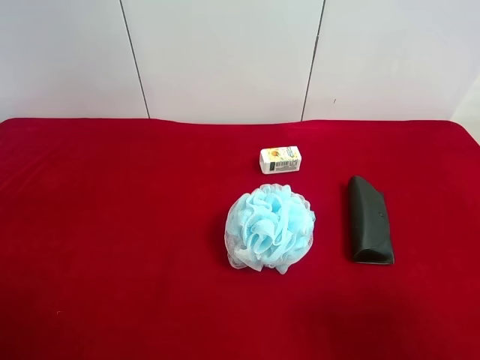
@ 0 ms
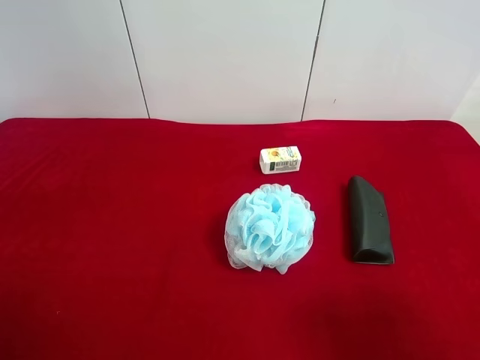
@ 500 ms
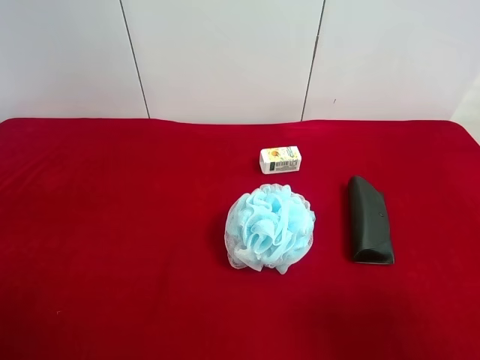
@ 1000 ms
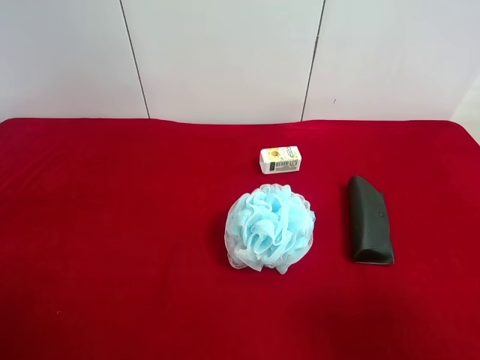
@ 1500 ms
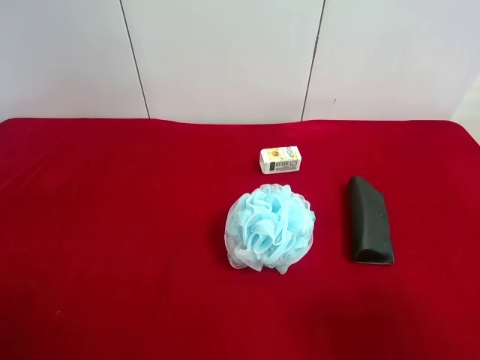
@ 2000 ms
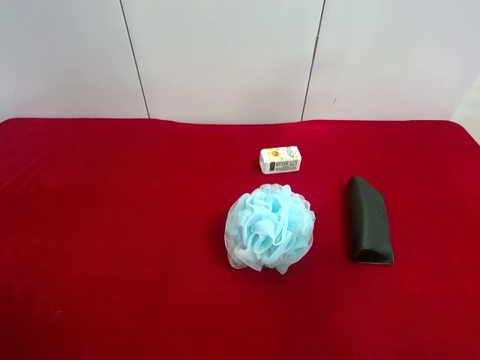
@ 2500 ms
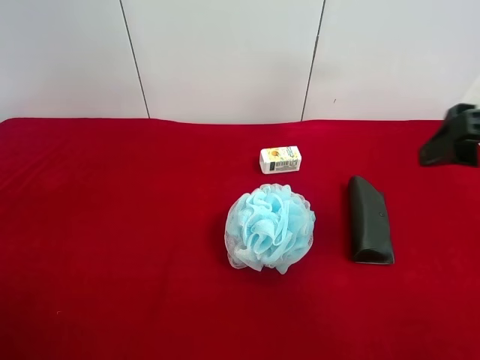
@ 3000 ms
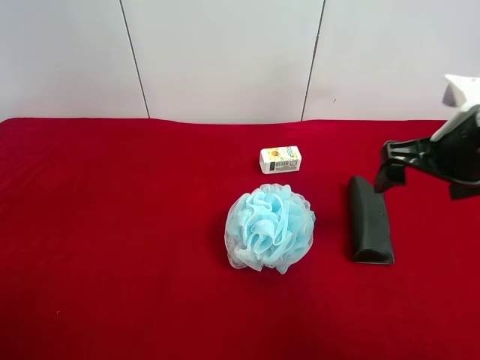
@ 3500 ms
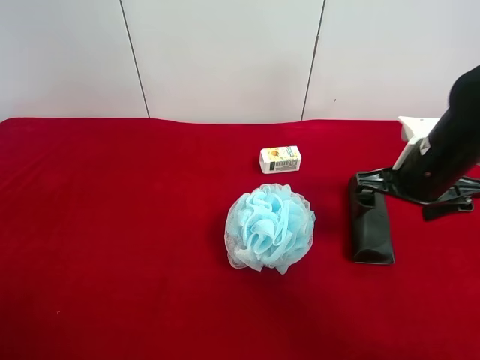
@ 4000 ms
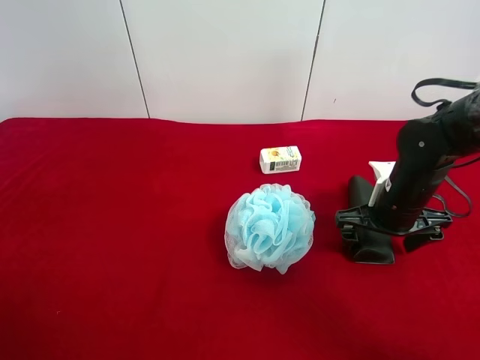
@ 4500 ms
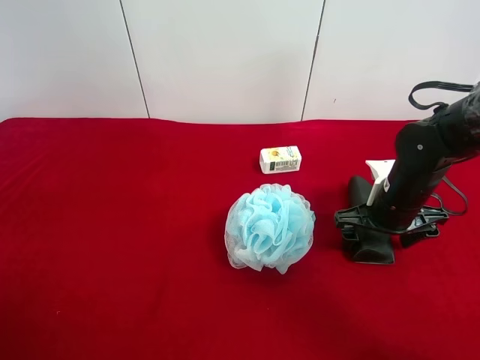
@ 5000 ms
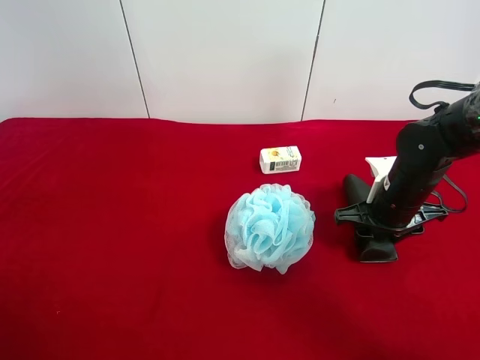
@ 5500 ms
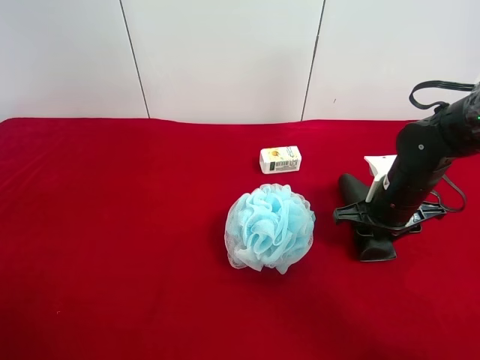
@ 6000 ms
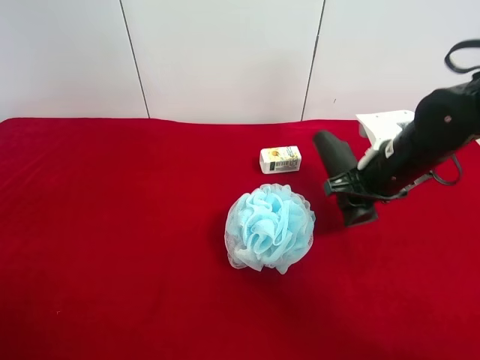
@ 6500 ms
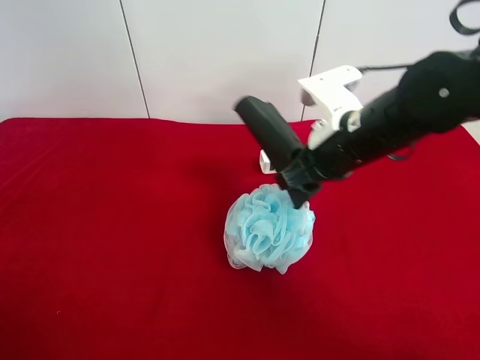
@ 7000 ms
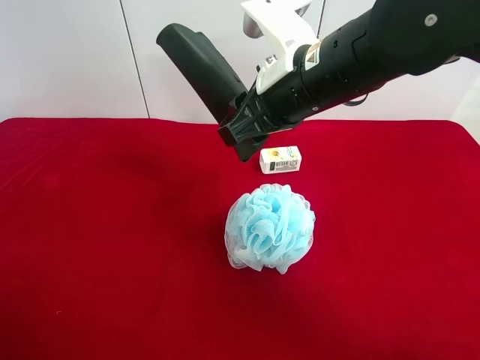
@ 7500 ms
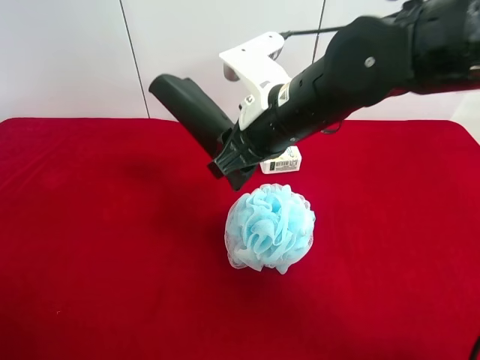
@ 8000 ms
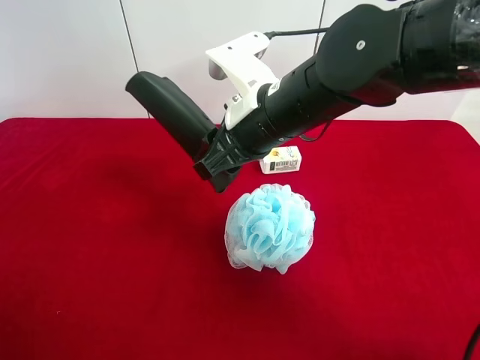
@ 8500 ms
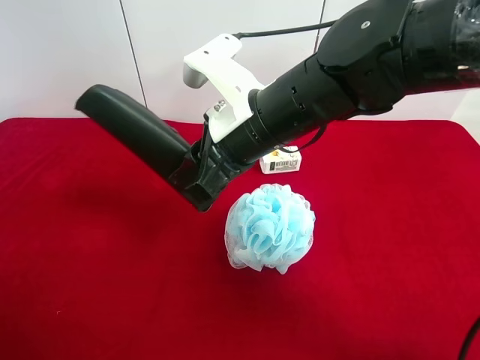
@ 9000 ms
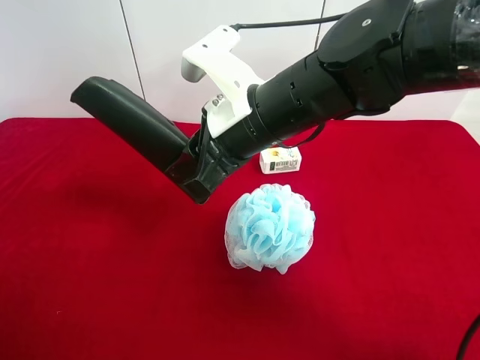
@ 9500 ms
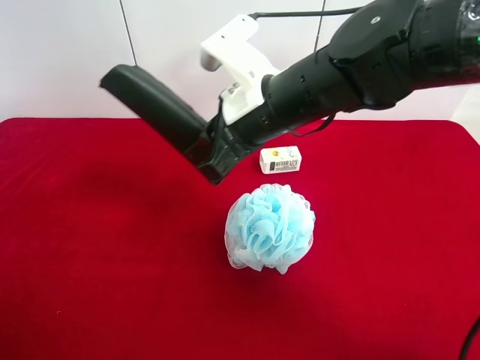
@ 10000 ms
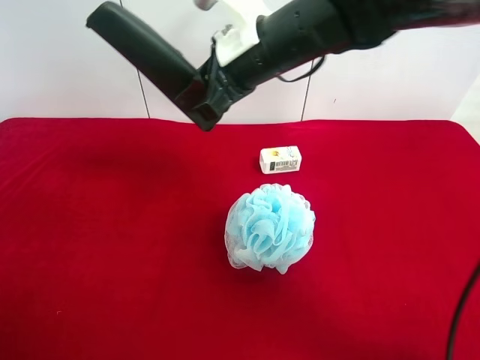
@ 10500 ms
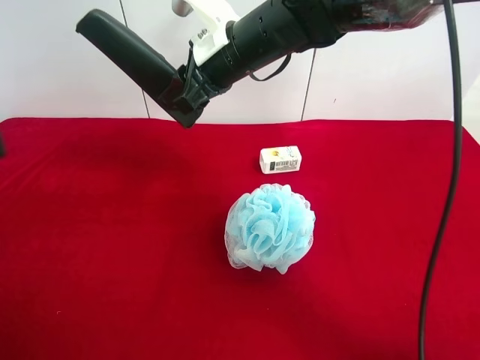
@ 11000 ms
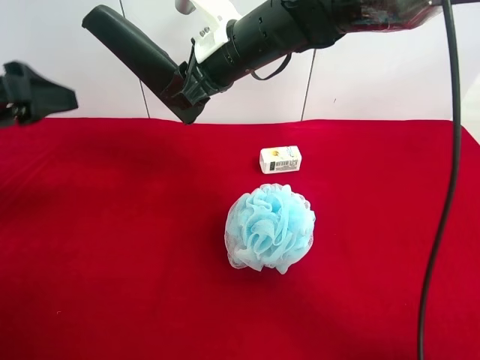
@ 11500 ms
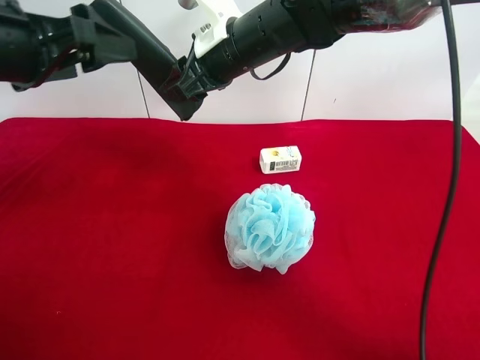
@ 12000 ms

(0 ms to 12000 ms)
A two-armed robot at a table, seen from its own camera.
Task of the whole recording: use the right gripper to pick up the item and transfer it from the right gripper to the left gripper.
Step, 0 ms - 5000 ms: Use the right gripper to grab the eyeglass case on the right side of the table.
0 ms - 2000 ms: Both grippers stay put.
2000 ms - 4000 ms: The right gripper travels forward by about 25 cm.
4000 ms - 6000 ms: The right gripper heads downward, covering approximately 5 cm, and closes its fingers.
6000 ms - 8000 ms: The right gripper moves to the left and upward, roughly 20 cm.
10000 ms - 12000 ms: The right gripper is displaced forward by roughly 10 cm, while the left gripper travels forward by some 25 cm.

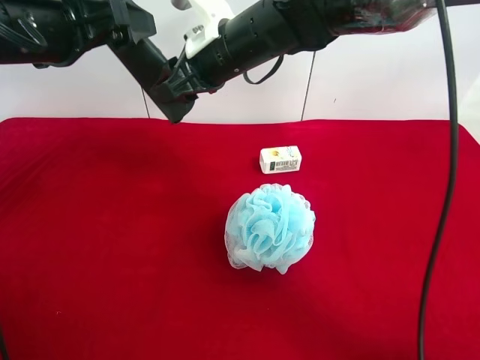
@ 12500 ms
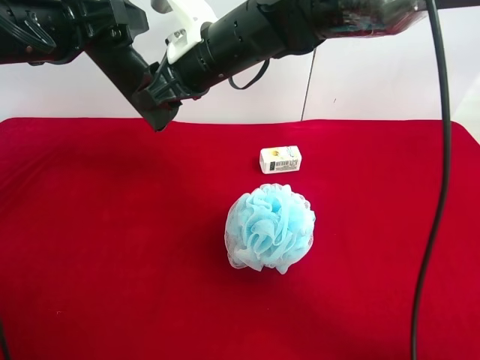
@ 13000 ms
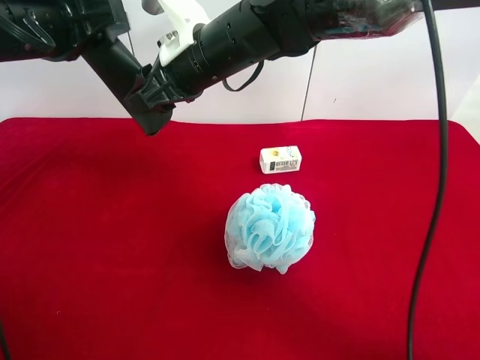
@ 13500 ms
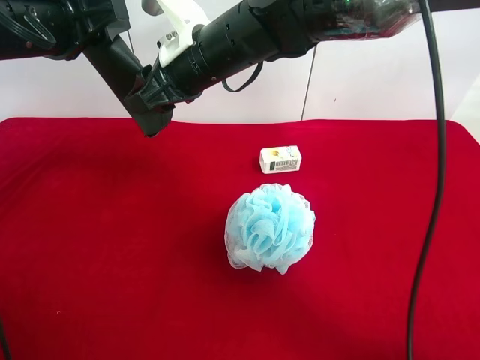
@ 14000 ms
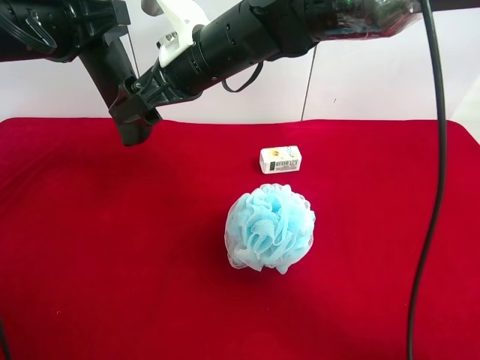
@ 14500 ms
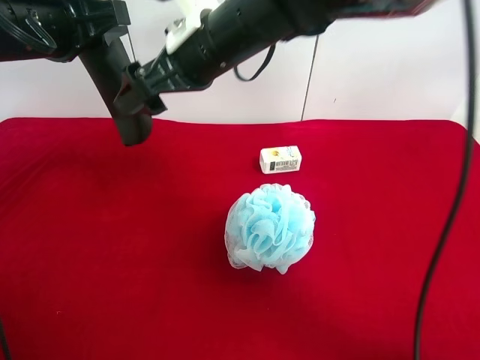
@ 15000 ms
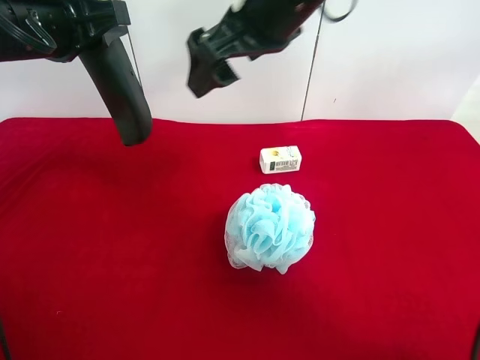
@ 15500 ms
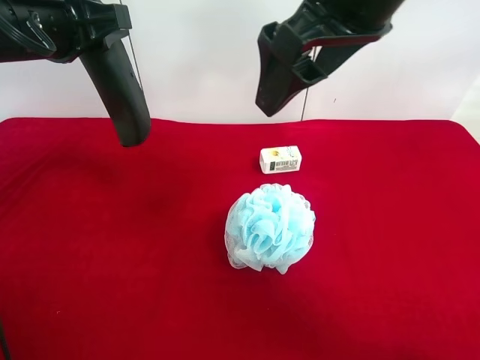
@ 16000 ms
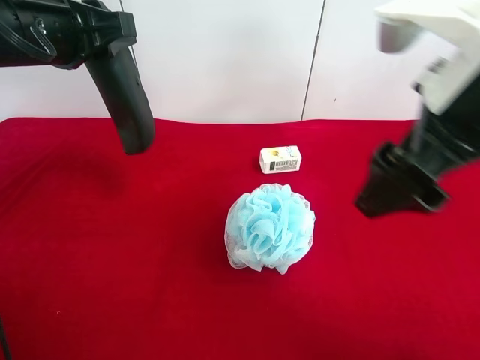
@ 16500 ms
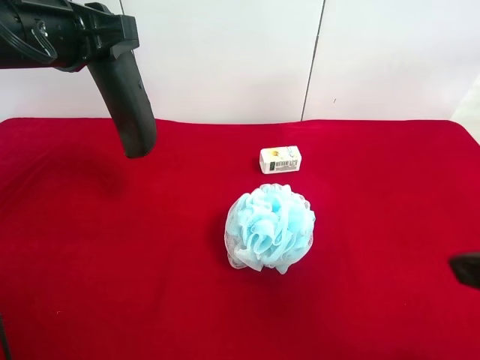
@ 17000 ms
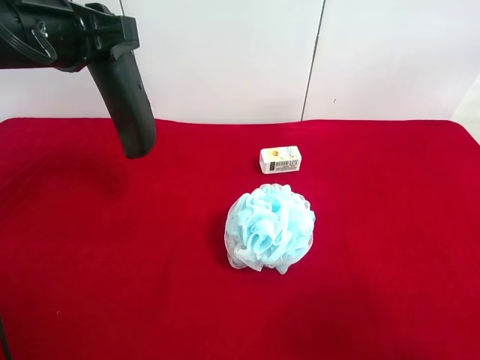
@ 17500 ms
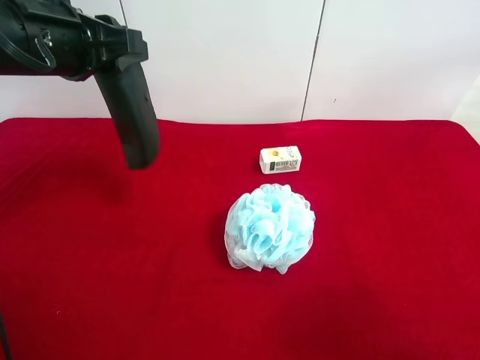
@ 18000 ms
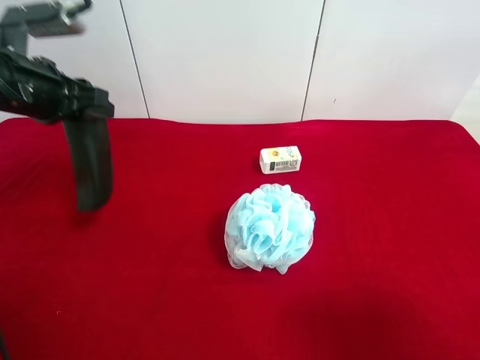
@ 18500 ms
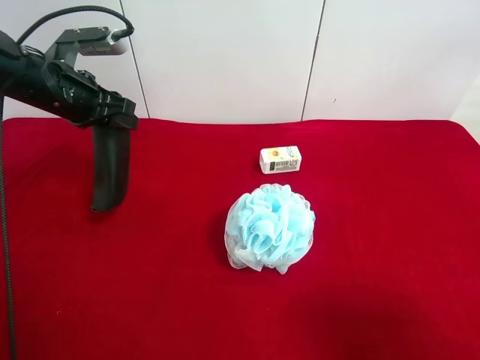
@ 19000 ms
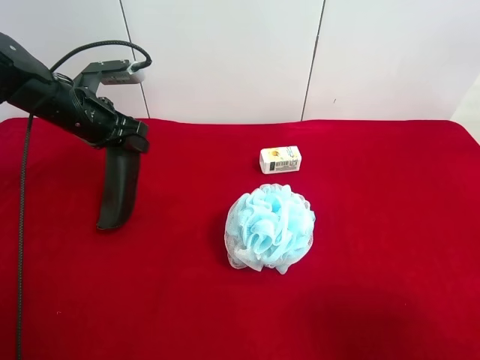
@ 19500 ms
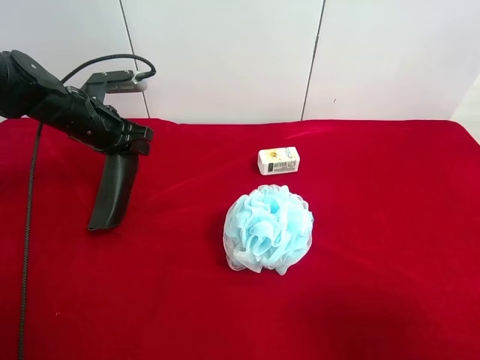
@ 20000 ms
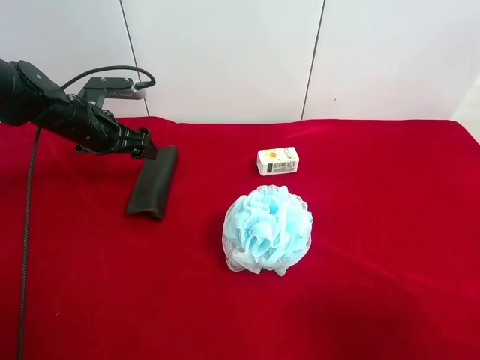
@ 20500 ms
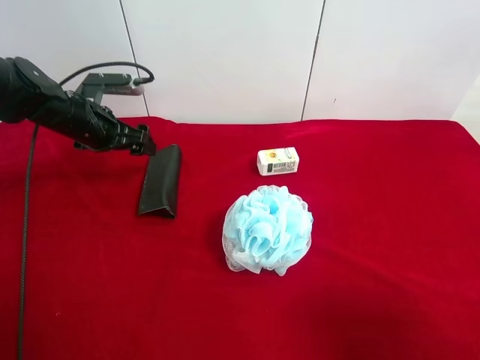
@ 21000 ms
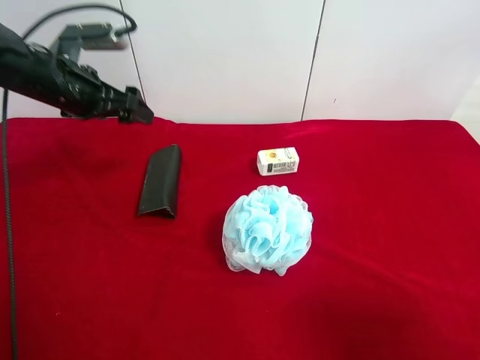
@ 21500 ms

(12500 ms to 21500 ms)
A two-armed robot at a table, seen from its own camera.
Task of the whole recording: use the right gripper to pick up the item and transfer it from the right gripper to the left gripper.
Step, 14500 ms - 20500 ms: The left gripper places eyeglass case on the left side of the table.
12500 ms - 14500 ms: The right gripper opens, while the left gripper closes.
14500 ms - 17000 ms: The right gripper travels backward and to the right by some 40 cm.
17000 ms - 19500 ms: The right gripper heads backward, covering about 5 cm. The left gripper heads downward and forward, covering approximately 15 cm.
19500 ms - 21500 ms: The left gripper shifts some 5 cm upward, and opens up.

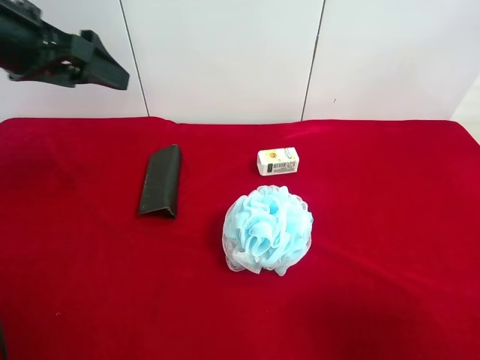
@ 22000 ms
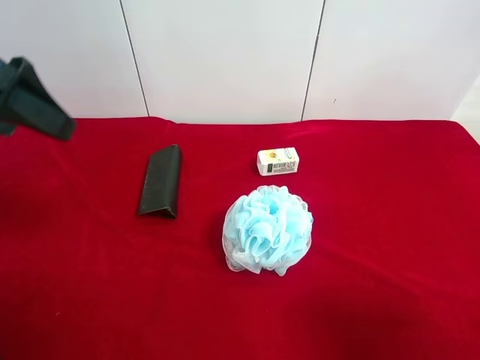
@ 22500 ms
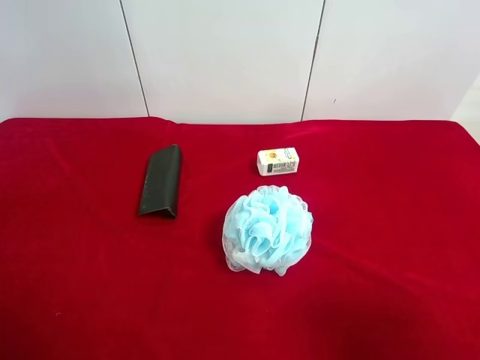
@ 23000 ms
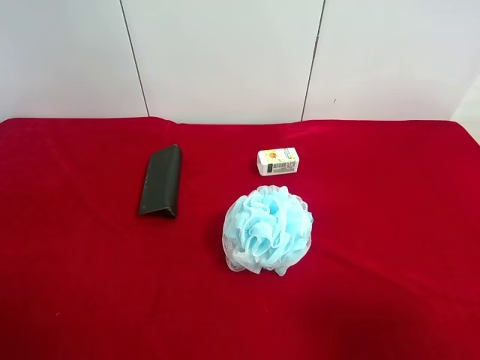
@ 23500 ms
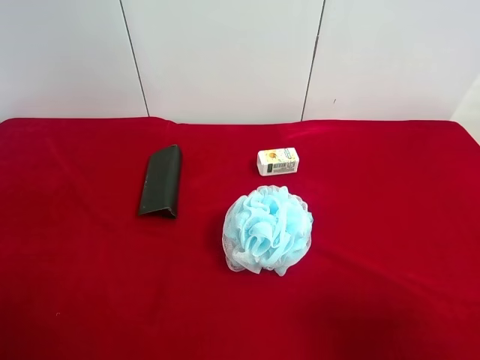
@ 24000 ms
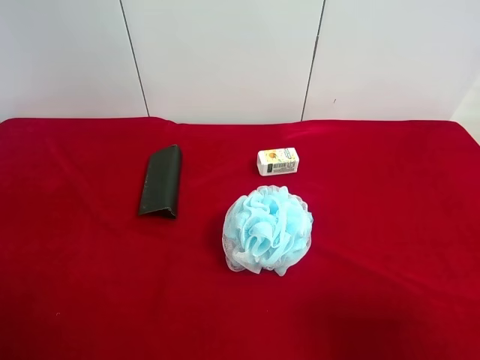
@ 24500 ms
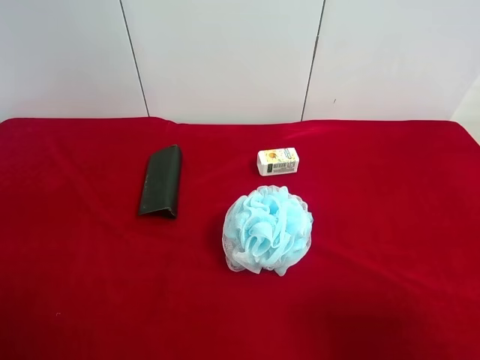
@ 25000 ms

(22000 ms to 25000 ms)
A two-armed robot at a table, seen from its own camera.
Task of the whole recording: use the right gripper to pick up the item and transfer it from the right gripper to the left gripper.
22000 ms - 23500 ms: The left gripper is displaced backward by roughly 20 cm.
